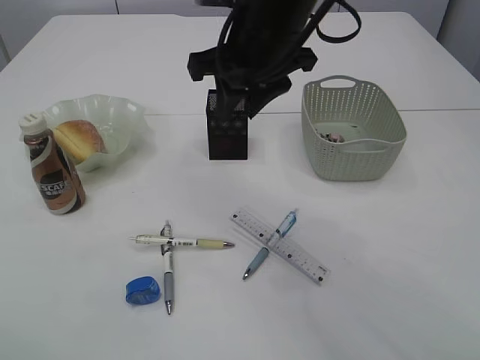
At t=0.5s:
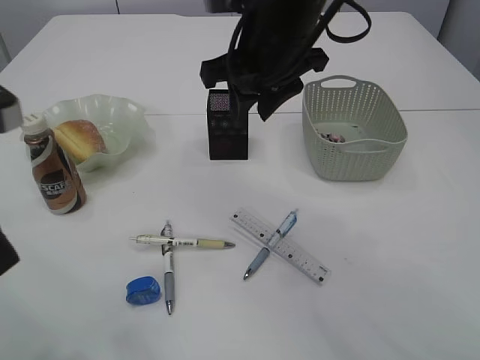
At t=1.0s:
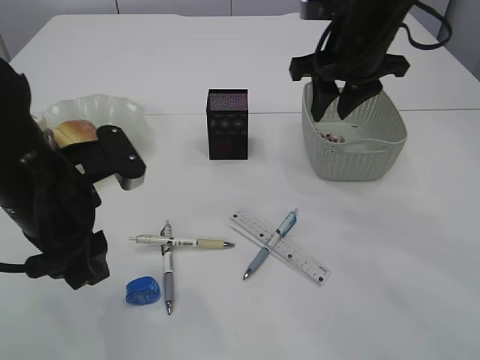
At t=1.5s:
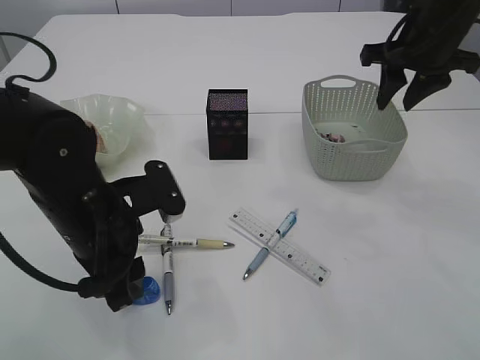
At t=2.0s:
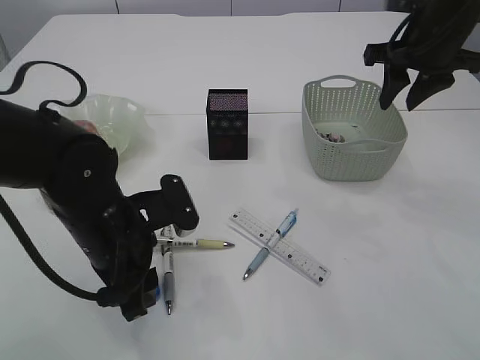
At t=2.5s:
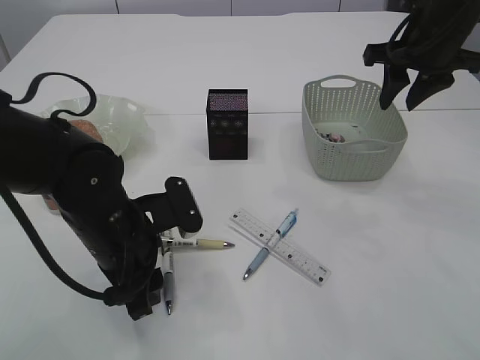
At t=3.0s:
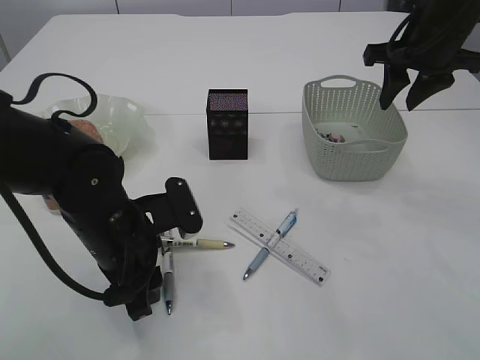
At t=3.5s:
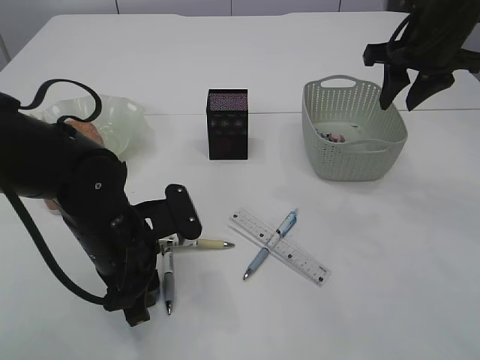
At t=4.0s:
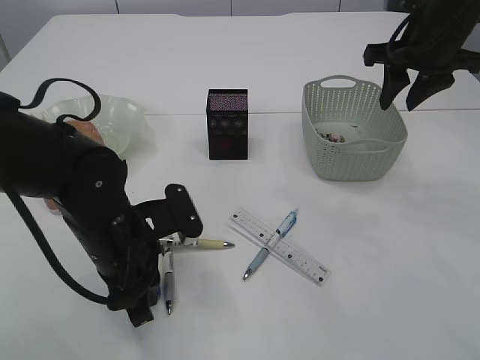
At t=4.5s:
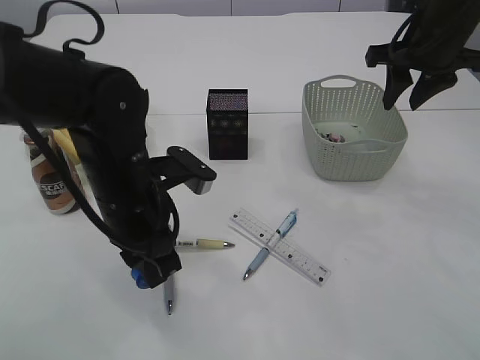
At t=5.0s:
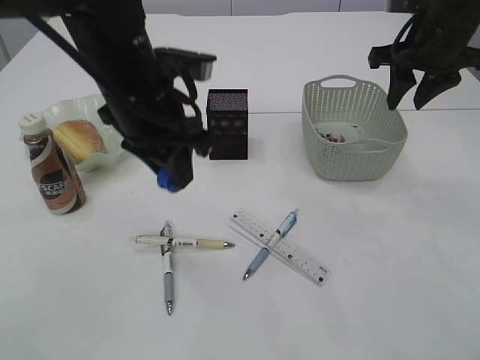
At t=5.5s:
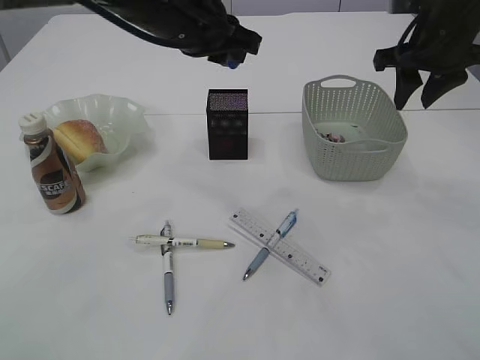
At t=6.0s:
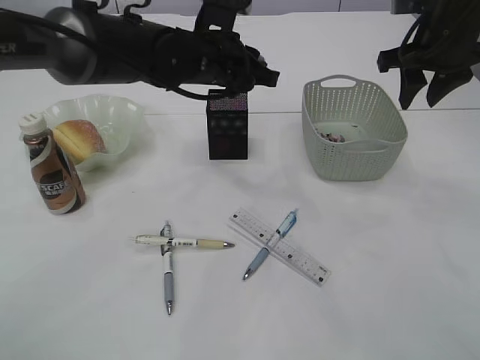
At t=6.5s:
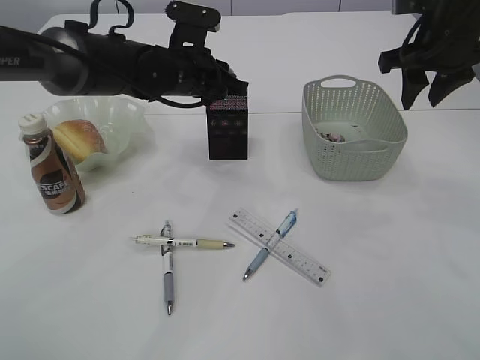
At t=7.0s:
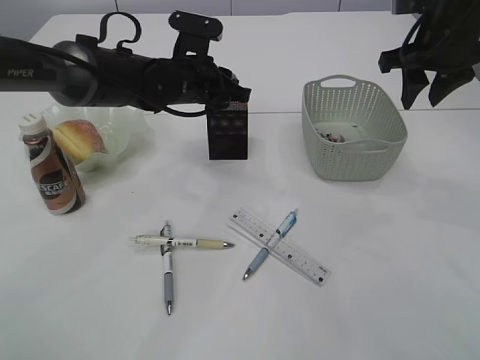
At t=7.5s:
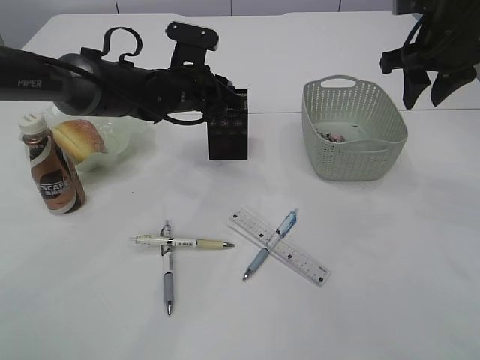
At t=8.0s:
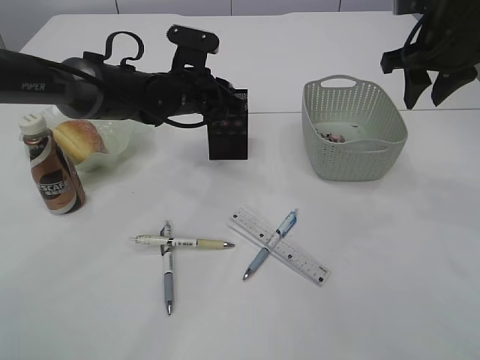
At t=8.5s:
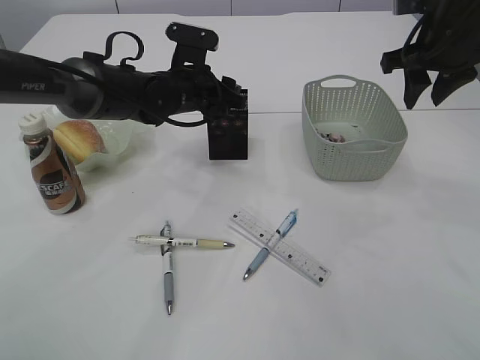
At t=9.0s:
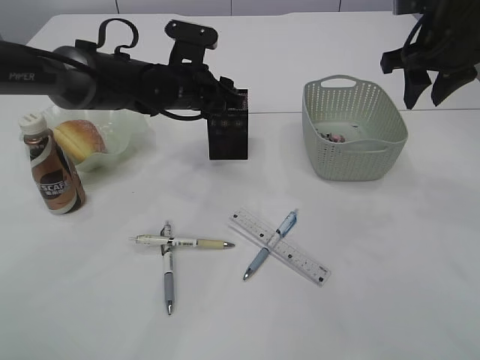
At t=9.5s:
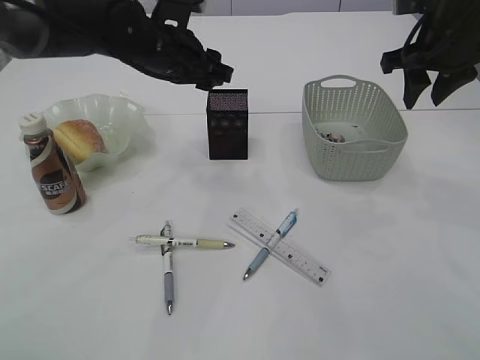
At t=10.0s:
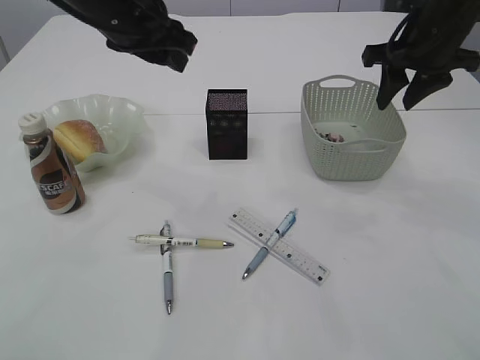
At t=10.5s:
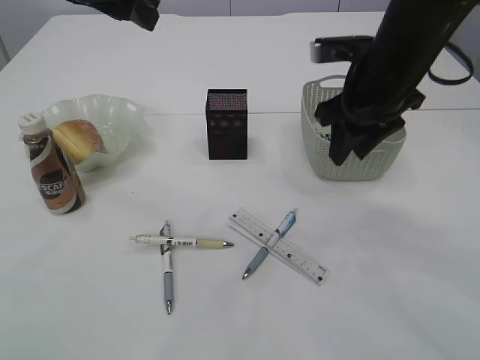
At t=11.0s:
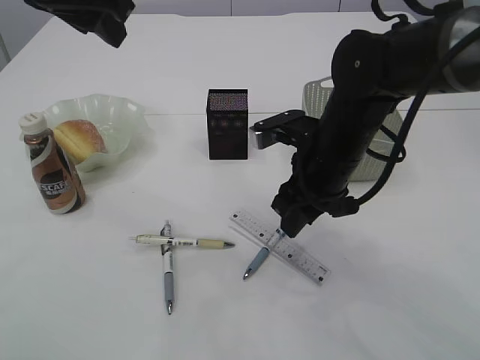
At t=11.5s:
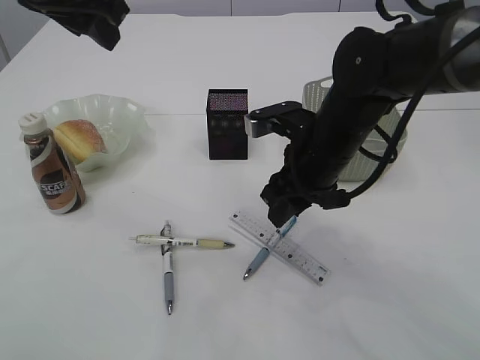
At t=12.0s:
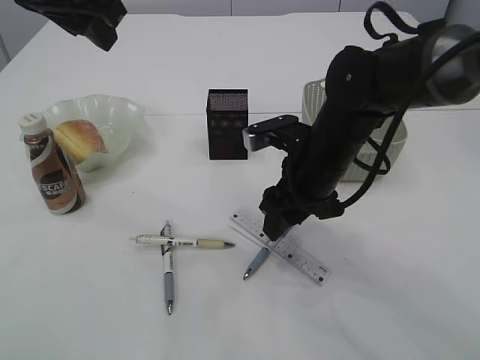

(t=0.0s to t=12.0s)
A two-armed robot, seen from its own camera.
Step, t=0.0s - t=4.5s: Pick up the blue pencil sharpener.
Step, t=5.0s - t=9.5s: Place the blue pencil sharpener into the pen holder.
t=0.0s - t=2.0s: The left gripper goes about 25 cm downward, to the right and forward. The right gripper moves to the right, some 20 cm.
t=2.0s - t=4.0s: The left gripper closes its fingers.
t=4.0s - t=6.0s: The left gripper moves forward, upward and to the right, some 20 cm.
t=6.0s - t=8.0s: The left gripper moves downward, some 5 cm.
t=8.0s - t=10.0s: The left gripper moves upward and backward, some 15 cm.
t=10.0s - t=12.0s: The left gripper goes about 10 cm upward and backward; the right gripper travels to the left, downward and backward by approximately 20 cm.

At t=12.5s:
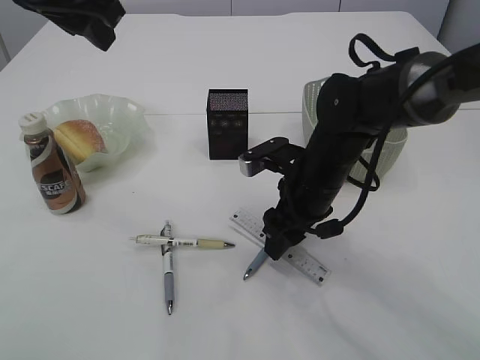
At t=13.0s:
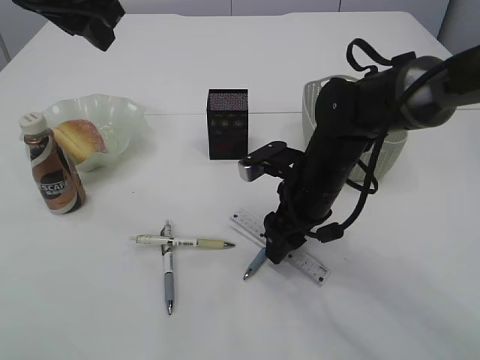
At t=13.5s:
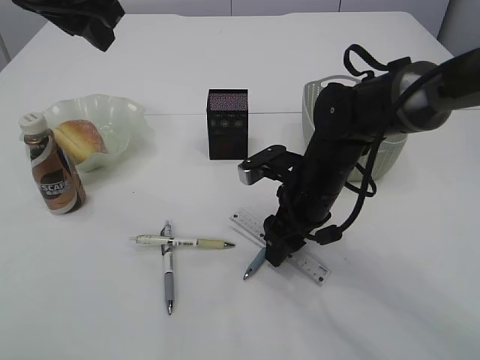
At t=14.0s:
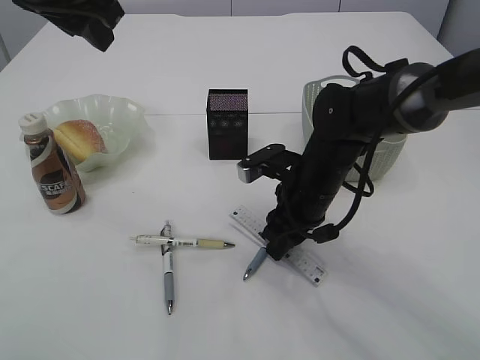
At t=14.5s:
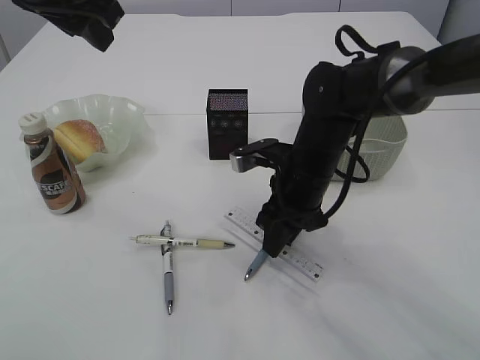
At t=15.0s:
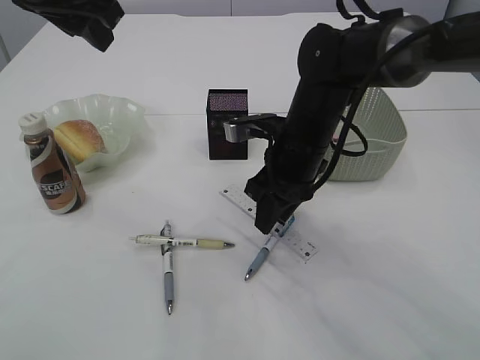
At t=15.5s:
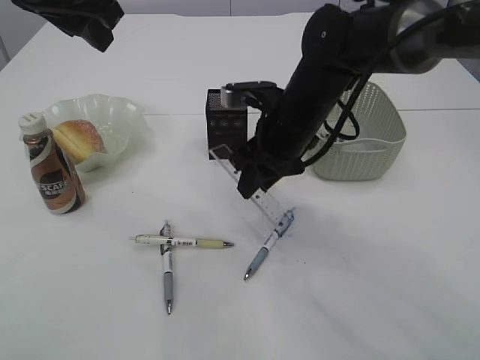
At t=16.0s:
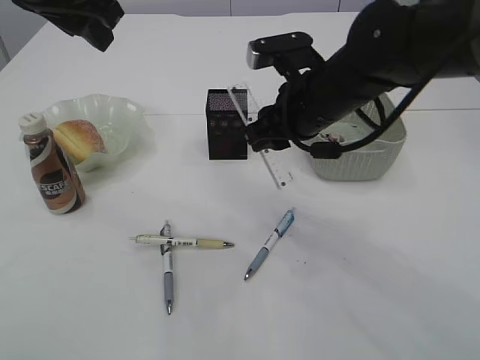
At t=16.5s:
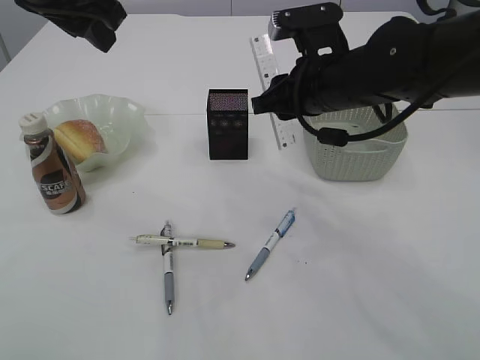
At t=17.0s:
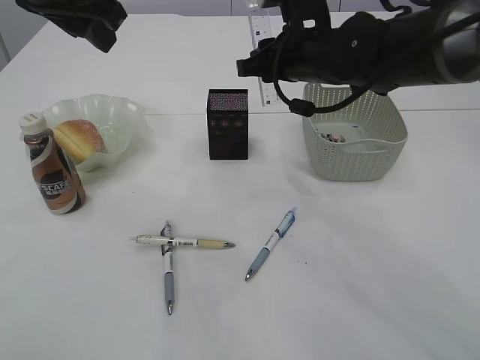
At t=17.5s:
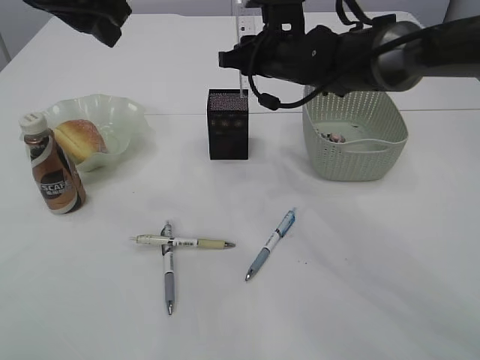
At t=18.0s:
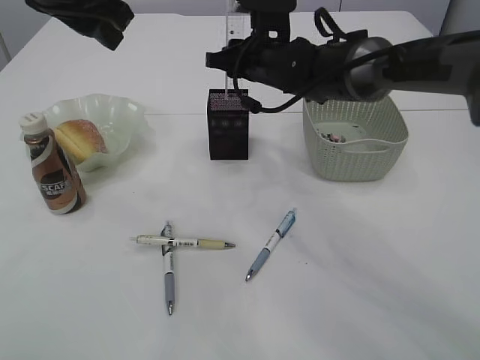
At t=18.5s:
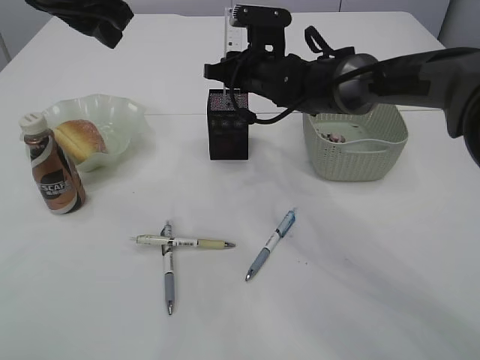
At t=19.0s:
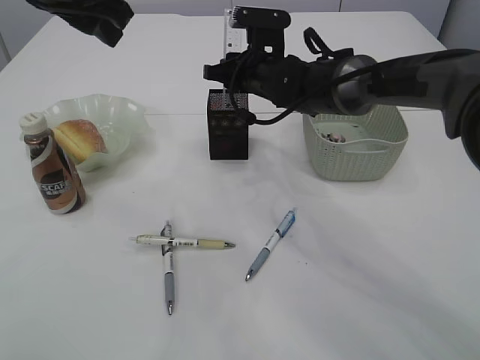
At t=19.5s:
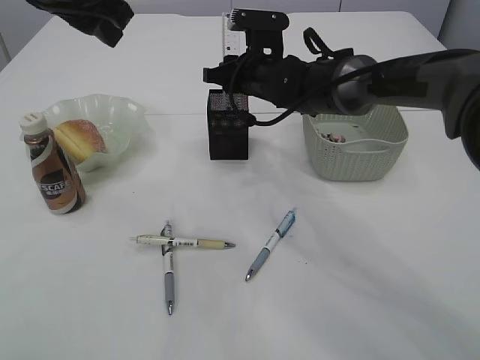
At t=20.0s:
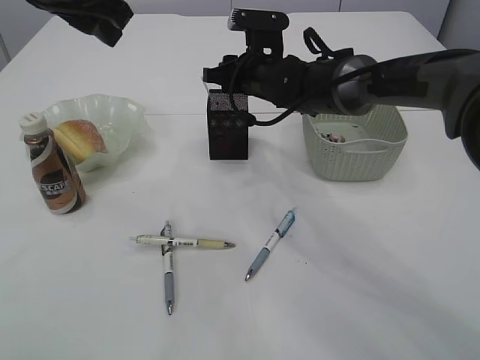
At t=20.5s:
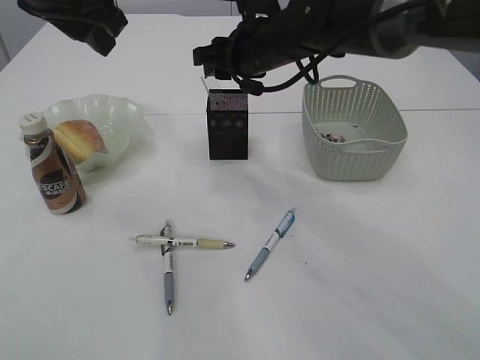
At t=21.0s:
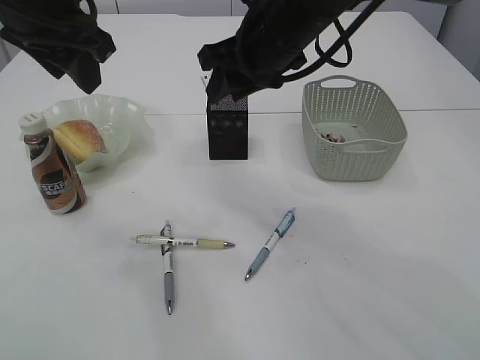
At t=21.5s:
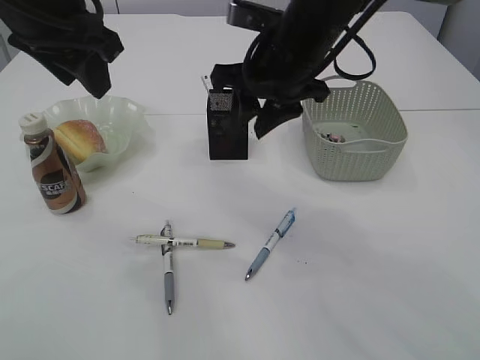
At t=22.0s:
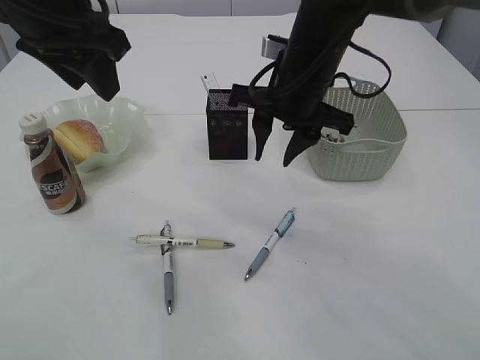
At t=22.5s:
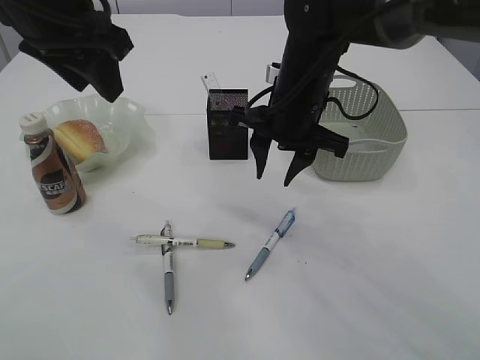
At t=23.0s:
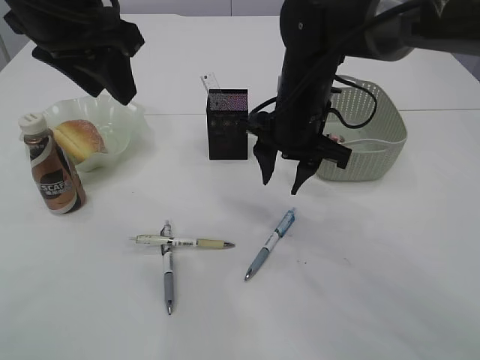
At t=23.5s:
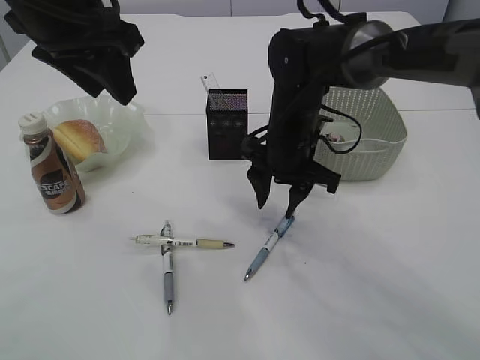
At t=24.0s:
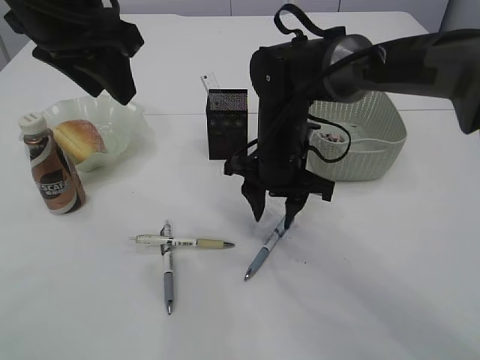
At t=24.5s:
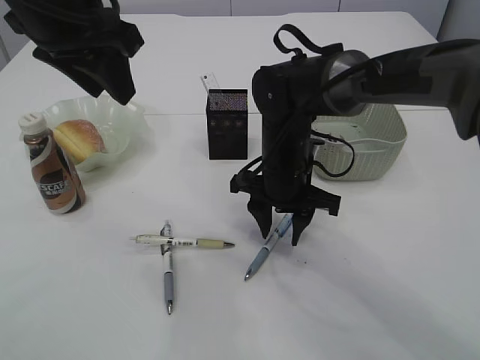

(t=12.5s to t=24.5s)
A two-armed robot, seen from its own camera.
Step, t=12.5s - t=15.0s: pick up the ruler.
Step, t=15.5s - t=20.0s: Place the ruler into the pen holder.
t=12.5s - t=14.5s: The right gripper closes up.
t=14.5s - t=16.5s: The right gripper heads upward, covering about 10 cm.
t=16.5s - t=18.5s: The right gripper travels forward and to the left by some 15 cm.
t=18.5s - t=20.5s: The right gripper goes some 5 cm upward.
t=20.5s - t=22.5s: The right gripper shifts roughly 5 cm backward.
t=22.5s - t=24.5s: The right gripper travels downward by some 10 cm.

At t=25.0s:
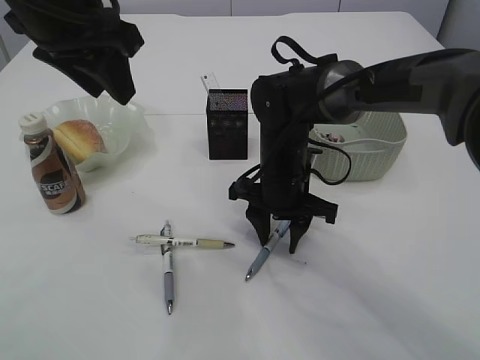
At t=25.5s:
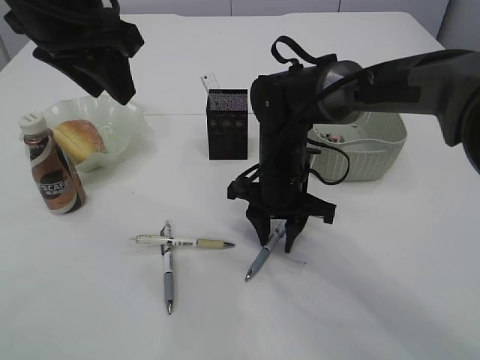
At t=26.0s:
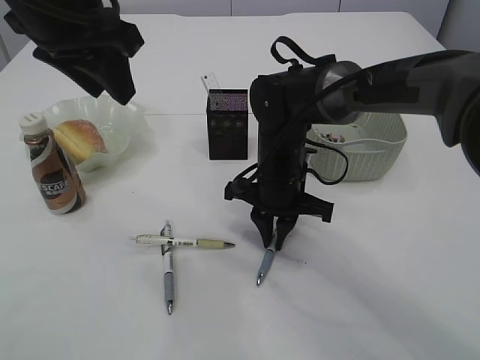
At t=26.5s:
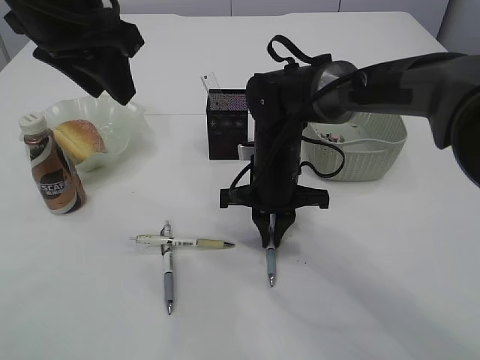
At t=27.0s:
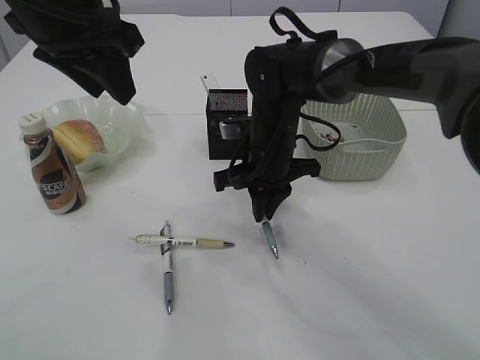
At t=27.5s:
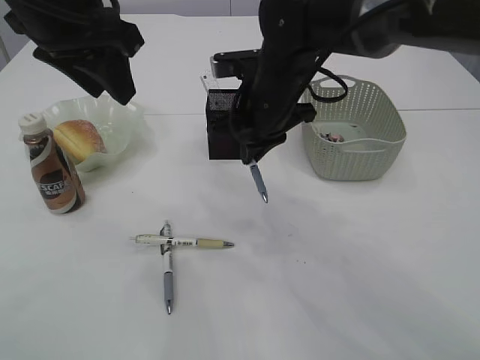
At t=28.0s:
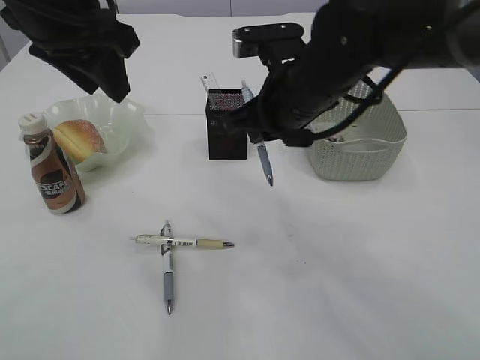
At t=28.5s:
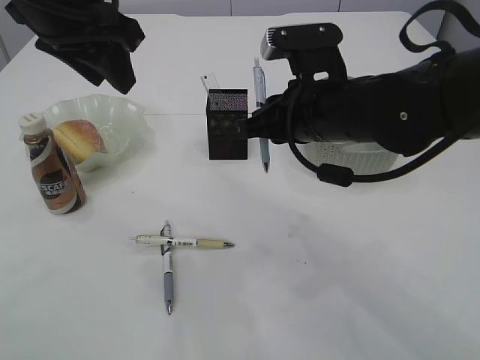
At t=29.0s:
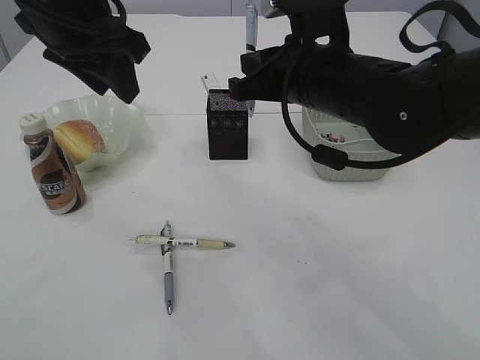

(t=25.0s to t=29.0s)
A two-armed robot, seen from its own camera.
Step, t=25.0s - t=27.0s: Pick up the pen with right arm.
t=25.0s - t=27.0s: The right gripper closes up.
t=27.0s - t=29.0s: The right gripper moves upward and backward, approximately 10 cm.
